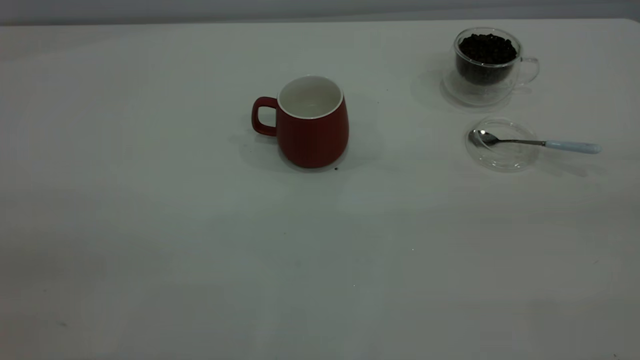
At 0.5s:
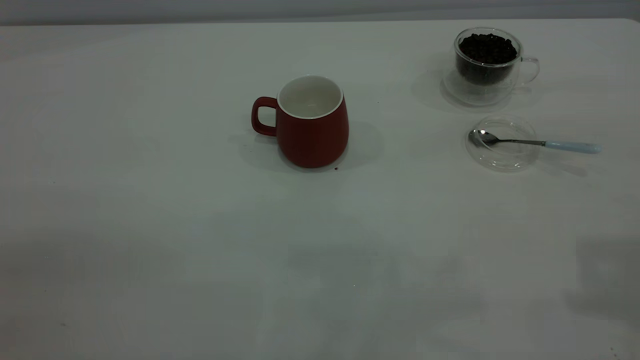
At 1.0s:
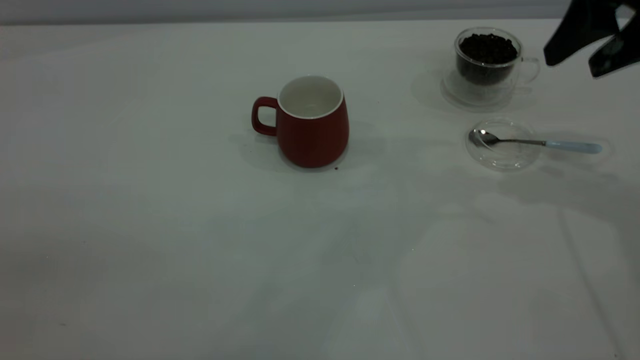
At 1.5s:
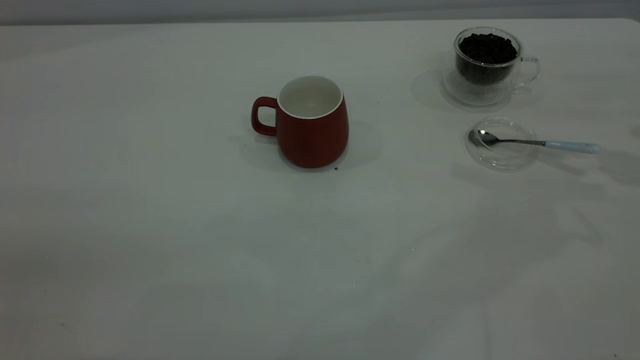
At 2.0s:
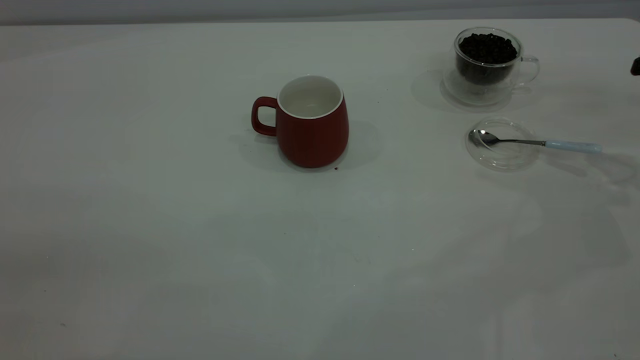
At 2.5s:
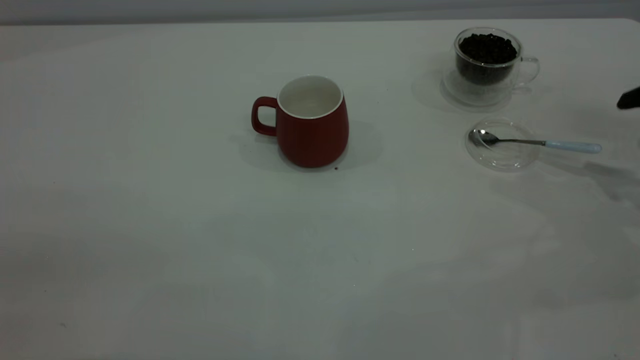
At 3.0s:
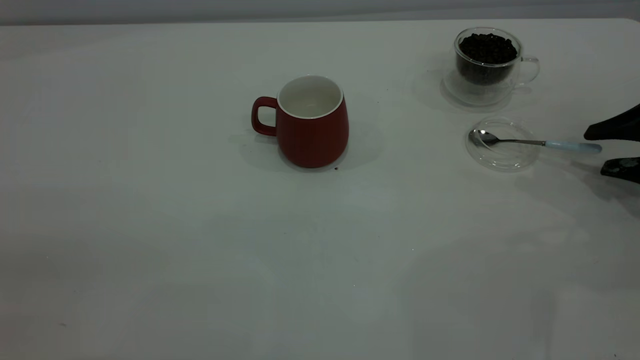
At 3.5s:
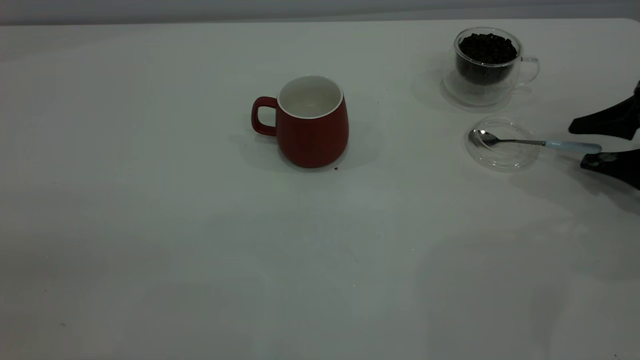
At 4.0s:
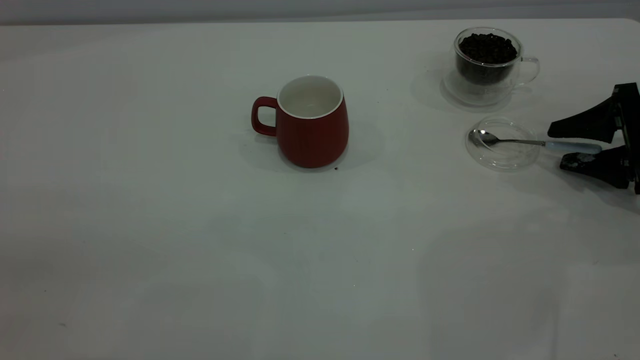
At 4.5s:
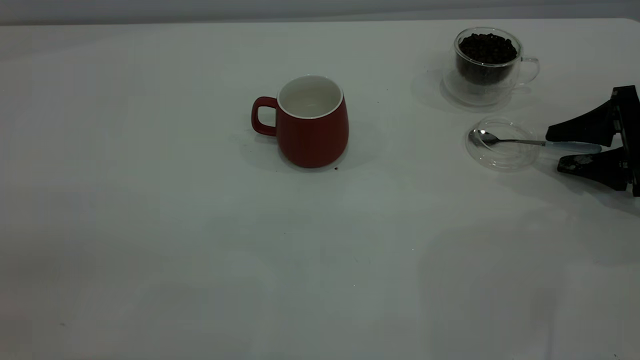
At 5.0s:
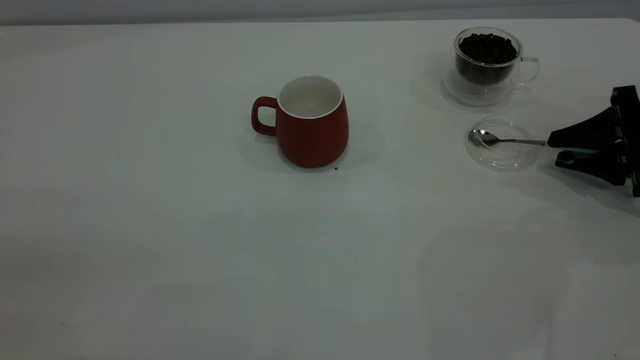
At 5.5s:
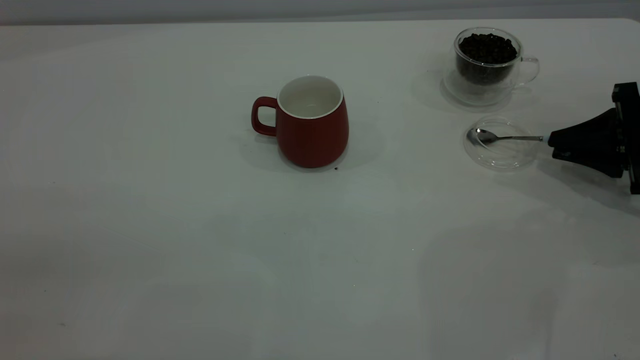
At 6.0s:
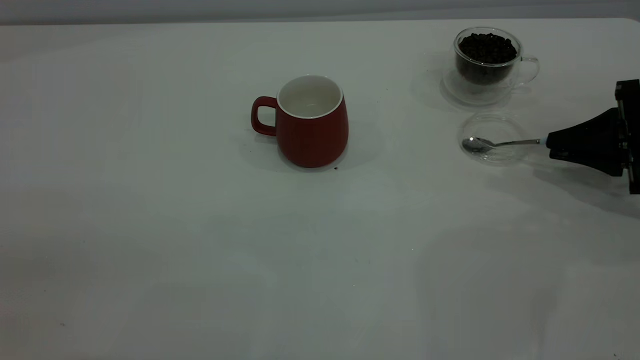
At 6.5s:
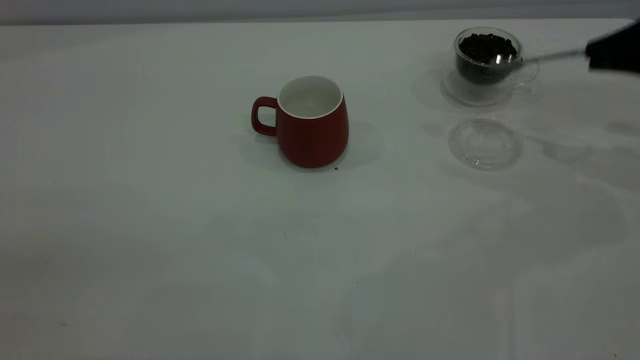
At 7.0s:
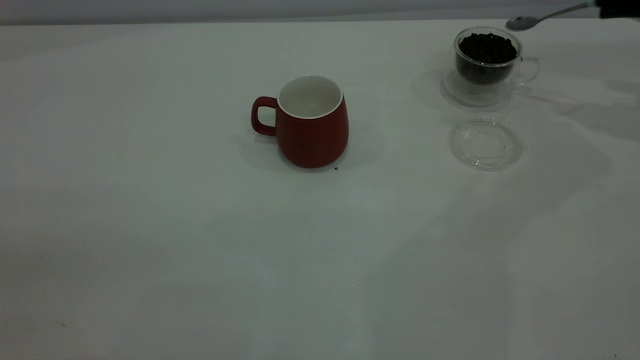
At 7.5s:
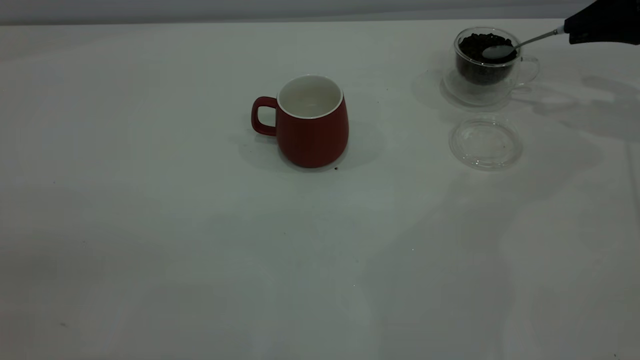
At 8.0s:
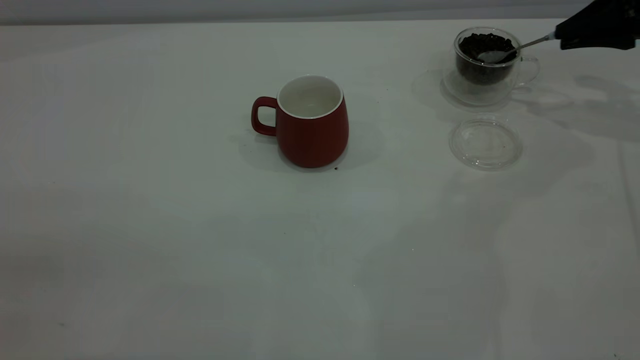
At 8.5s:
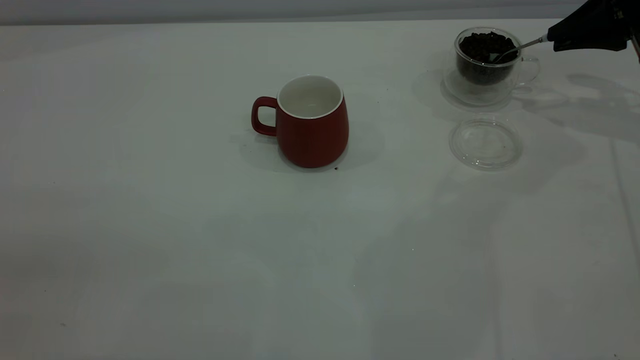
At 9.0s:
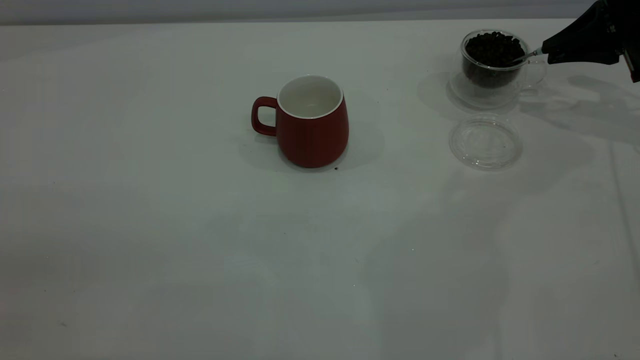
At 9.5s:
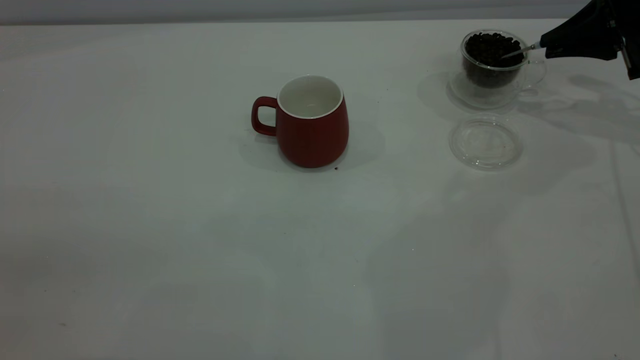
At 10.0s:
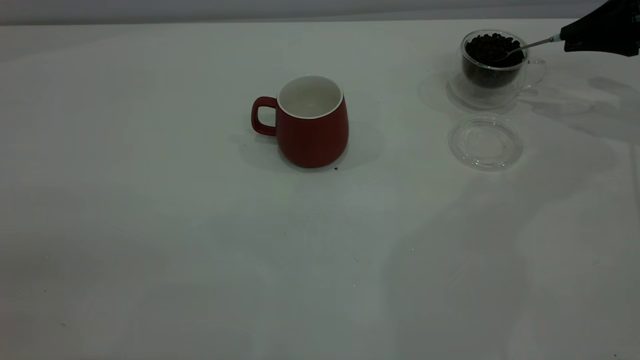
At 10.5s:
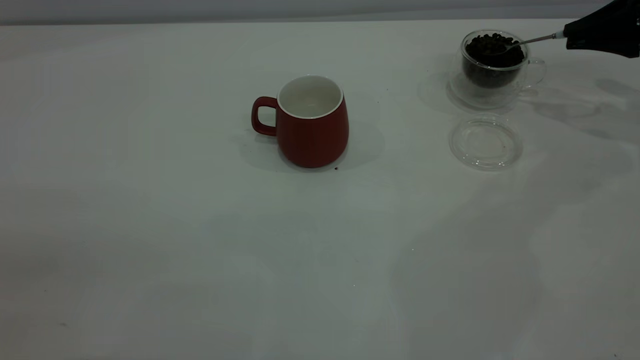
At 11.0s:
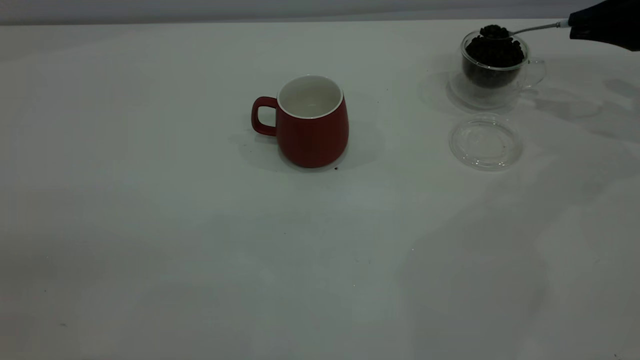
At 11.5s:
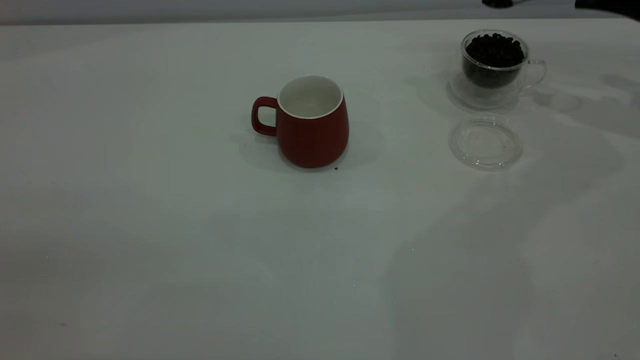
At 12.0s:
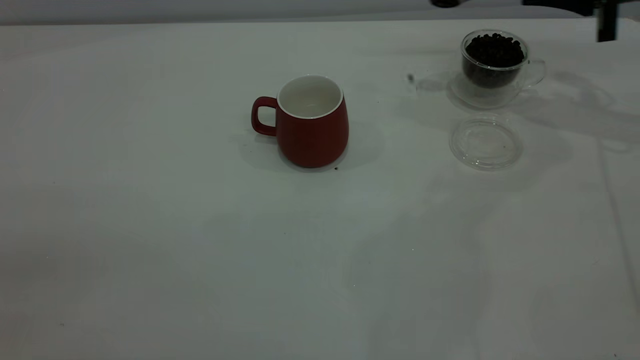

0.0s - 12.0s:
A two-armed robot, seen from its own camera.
Task of the whole recording: the left gripper place the red cup in the center of the table, the right gripper take the blue spoon from the cup lid and scoop out the coffee beans from the coffee cup and put them into the red cup, the right gripper put the spoon back into the cup lid.
Step, 0.0s - 6.0s: Pick up the spoon.
2.0s - 4.0s: The right gripper heads downward, covering roughly 10 cm.
4.0s - 6.0s: The right gripper closes up.
6.0s - 8.0s: The right gripper shifts roughly 15 cm forward and upward.
8.0s - 10.0s: The grippers move only a little.
10.0s - 12.0s: The right gripper travels to the left by roughly 5 cm.

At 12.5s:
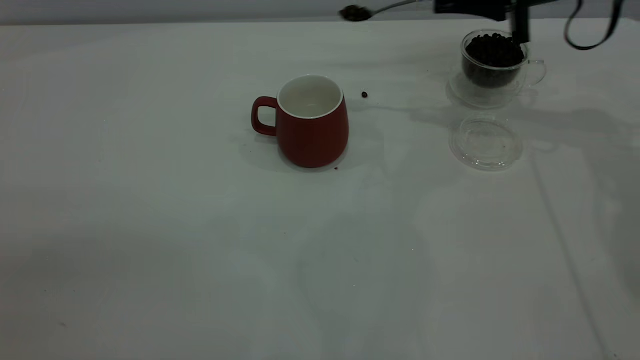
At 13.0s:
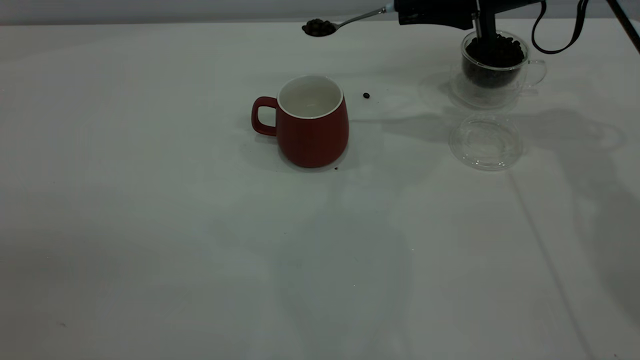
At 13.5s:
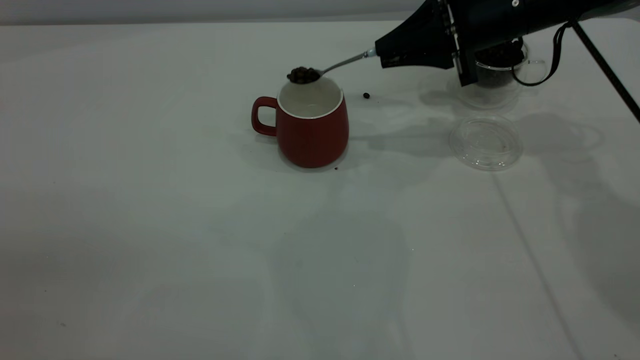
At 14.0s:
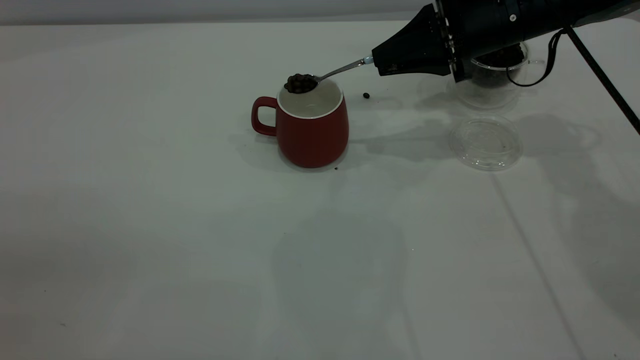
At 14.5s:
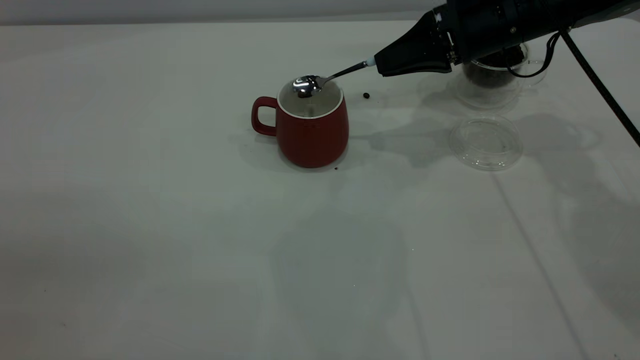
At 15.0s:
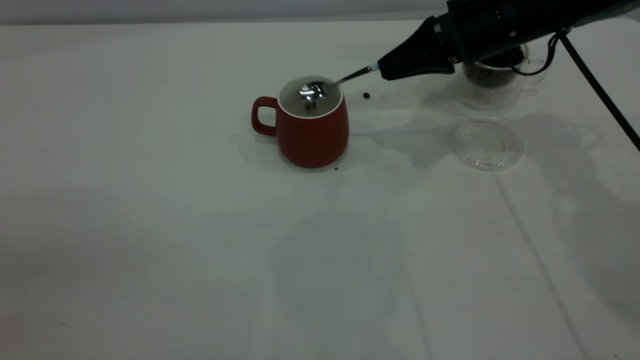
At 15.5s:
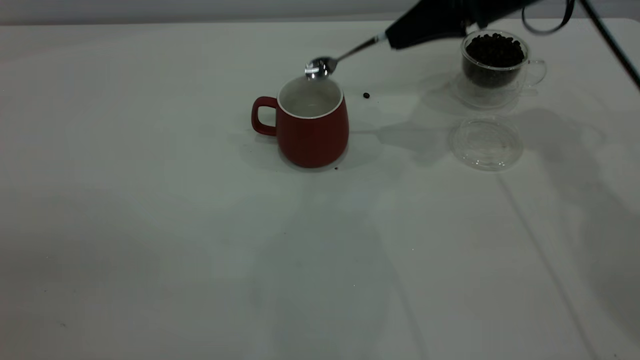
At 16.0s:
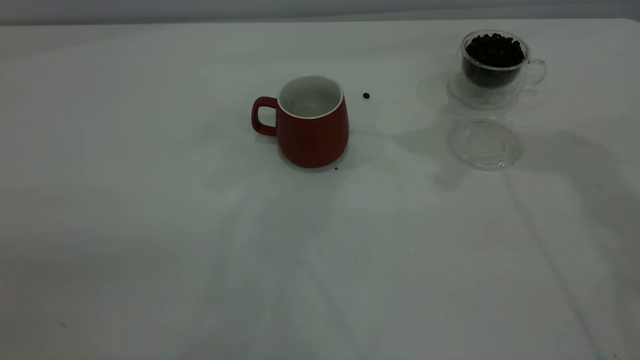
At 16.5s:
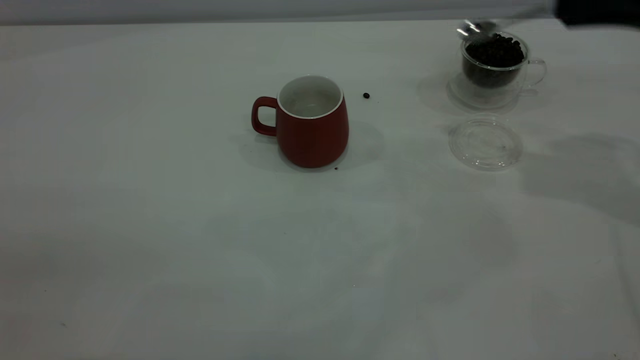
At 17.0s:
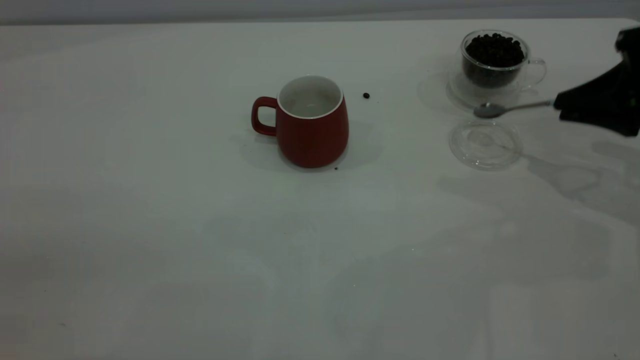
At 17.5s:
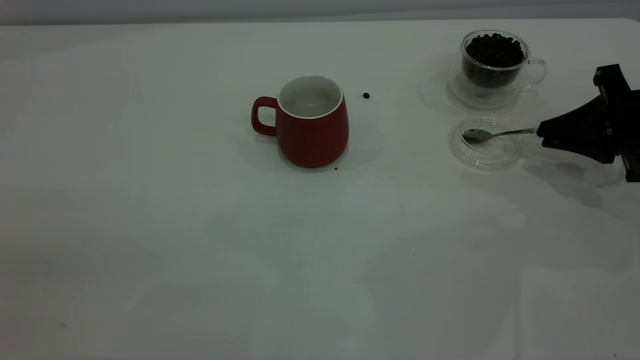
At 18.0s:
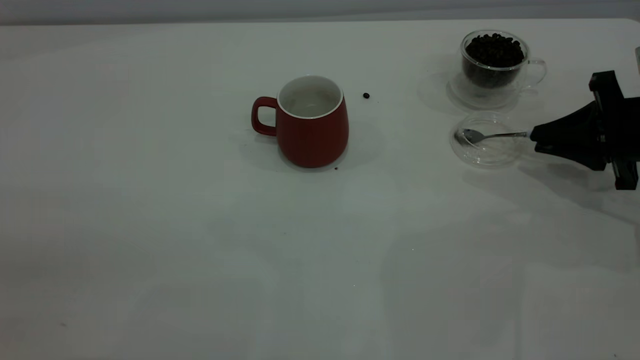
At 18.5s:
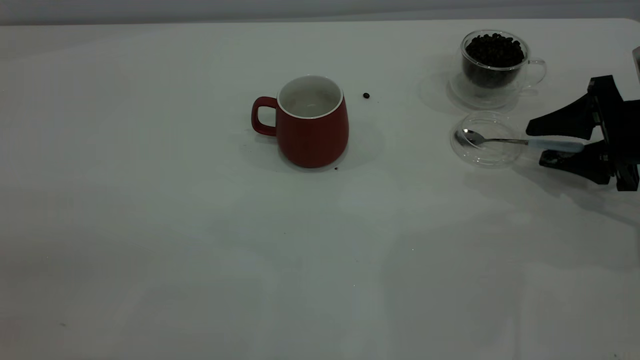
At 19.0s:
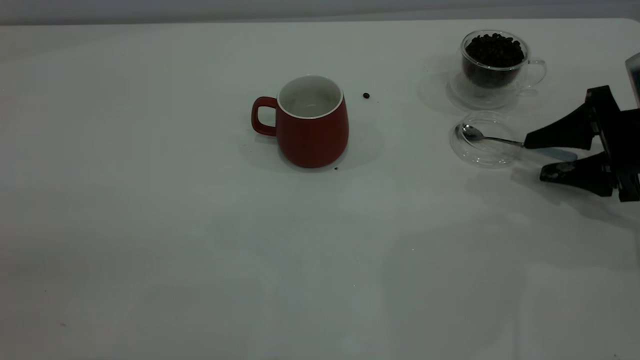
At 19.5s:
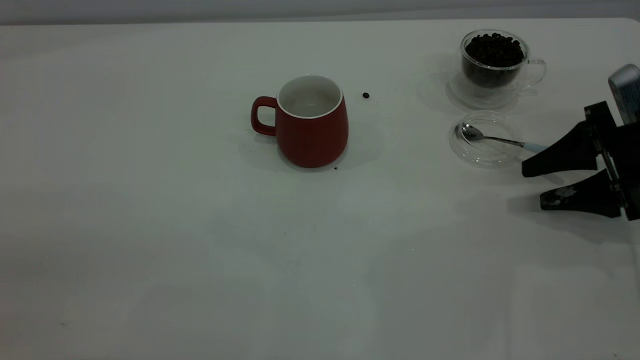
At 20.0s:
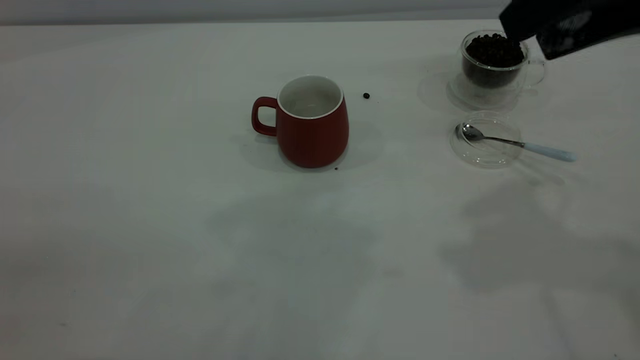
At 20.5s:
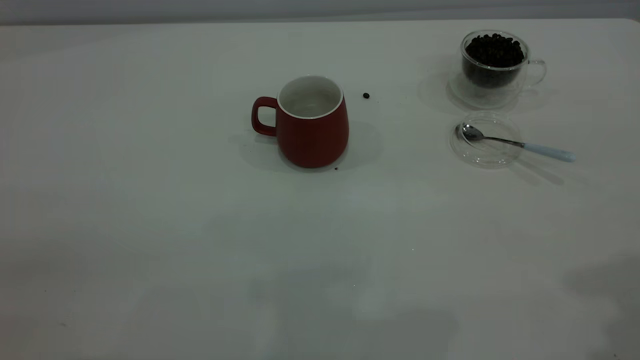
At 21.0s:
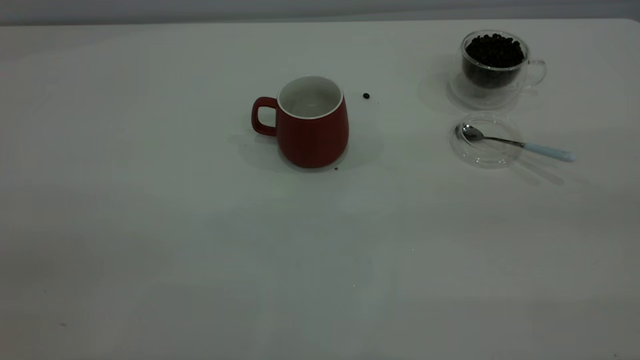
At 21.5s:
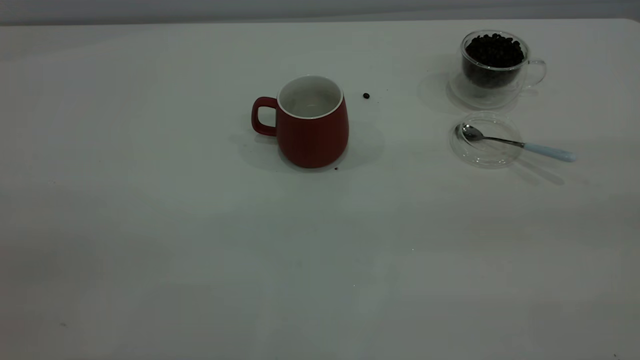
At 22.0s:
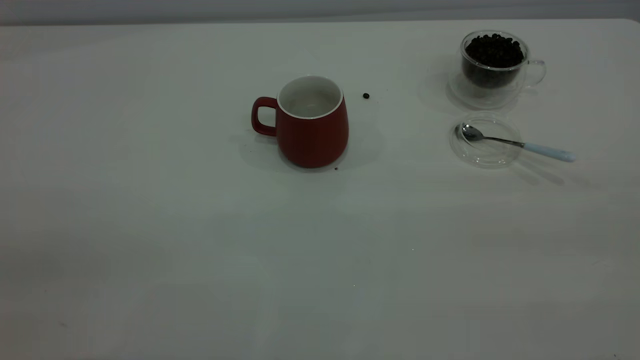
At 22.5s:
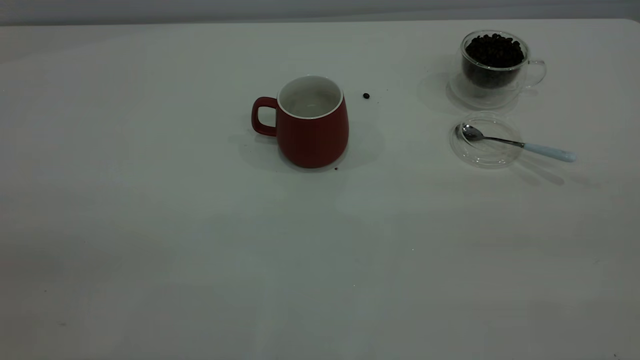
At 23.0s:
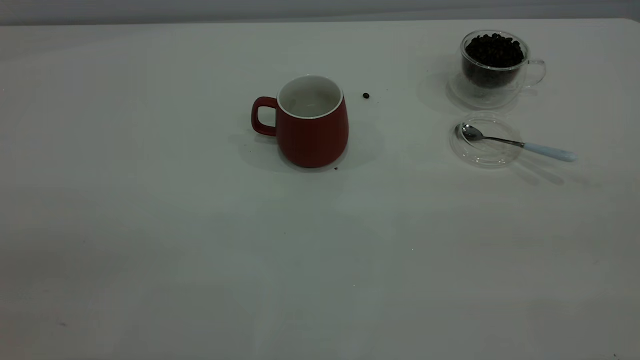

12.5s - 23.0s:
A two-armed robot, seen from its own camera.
Task of the whole recording: the left gripper place the red cup in the center of the table, the right gripper take the blue spoon from the cup lid and scoop out the coffee beans from the coffee cup and put them into the red cup, the right gripper put the spoon back into the cup lid.
Step, 12.5s - 15.5s: Scoop a spoonful of beans into the cup.
Step, 16.0s - 19.0s: Place the spoon back in its original place.
12.5s - 14.5s: The right gripper travels to the left by some 5 cm.
14.5s - 16.5s: The right gripper shifts about 20 cm to the right, backward and upward.
16.5s - 19.0s: The right gripper goes roughly 15 cm downward, and opens up.
19.0s - 21.0s: The right gripper travels upward and backward by about 40 cm.
